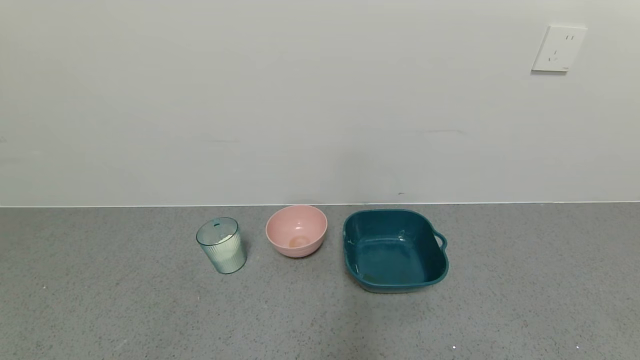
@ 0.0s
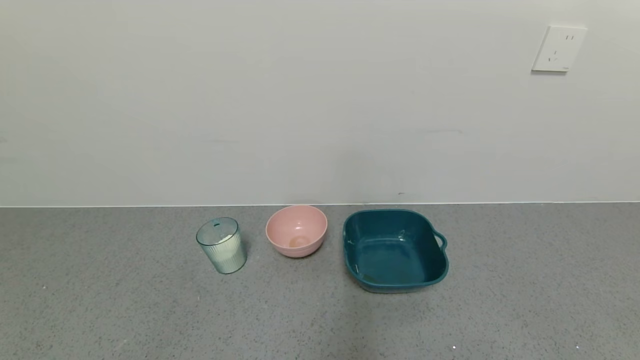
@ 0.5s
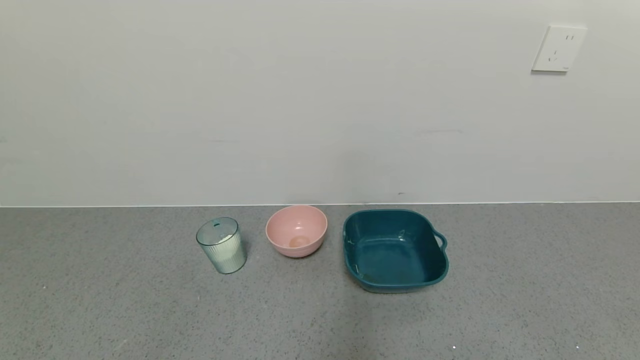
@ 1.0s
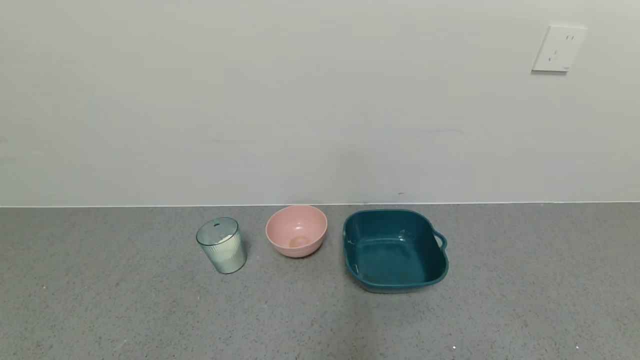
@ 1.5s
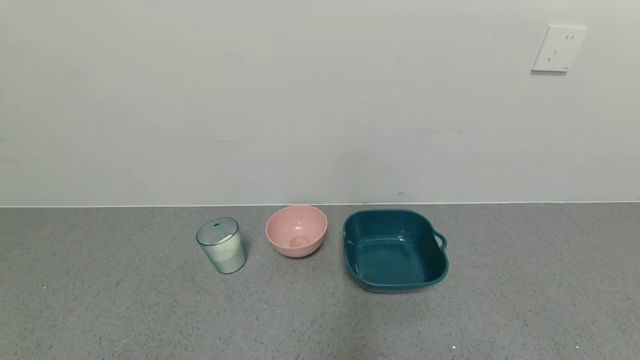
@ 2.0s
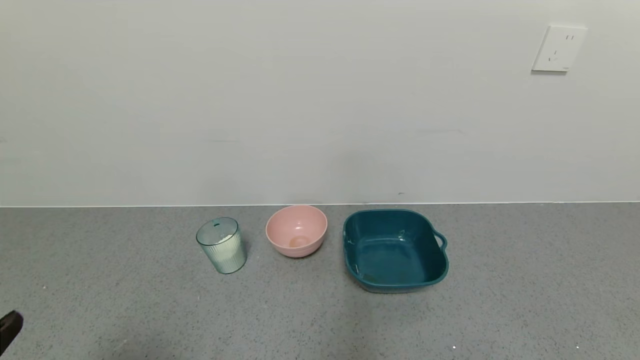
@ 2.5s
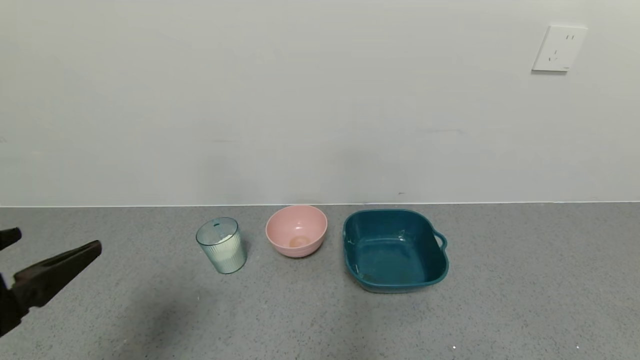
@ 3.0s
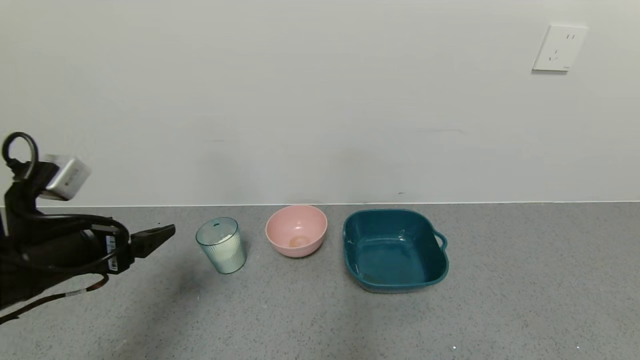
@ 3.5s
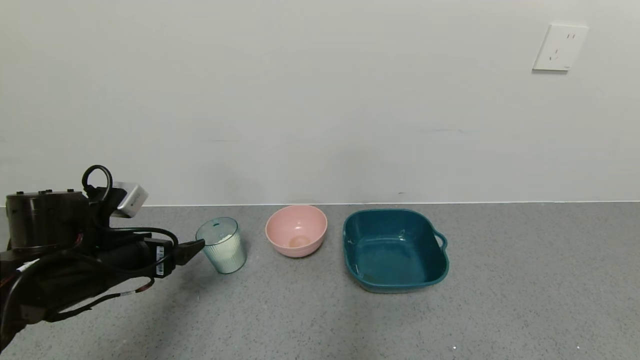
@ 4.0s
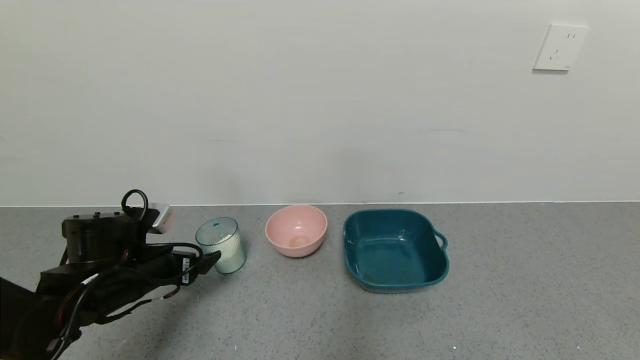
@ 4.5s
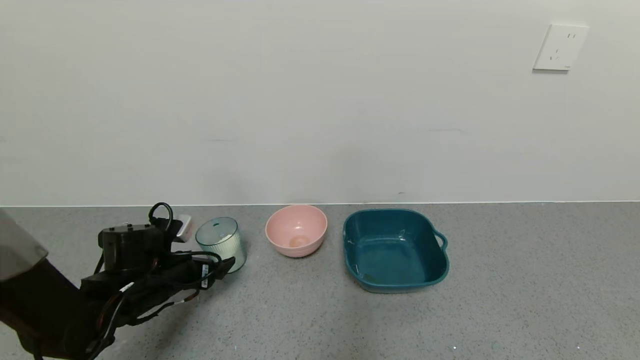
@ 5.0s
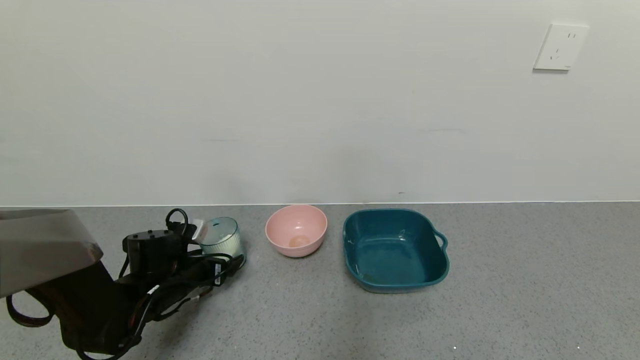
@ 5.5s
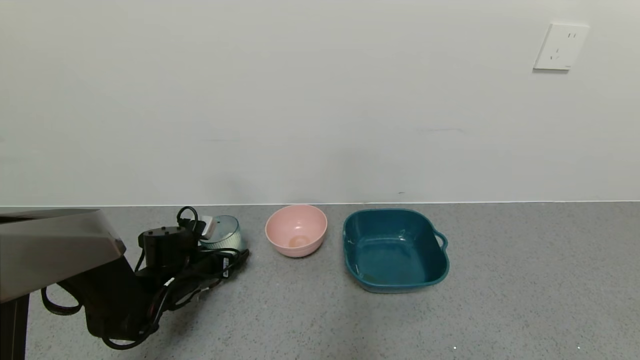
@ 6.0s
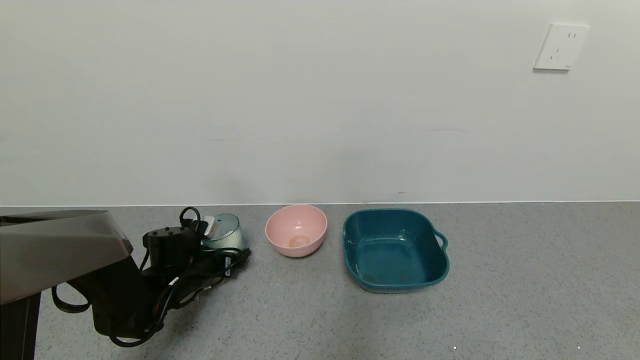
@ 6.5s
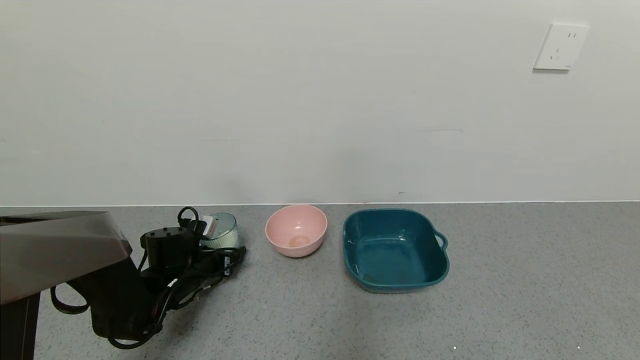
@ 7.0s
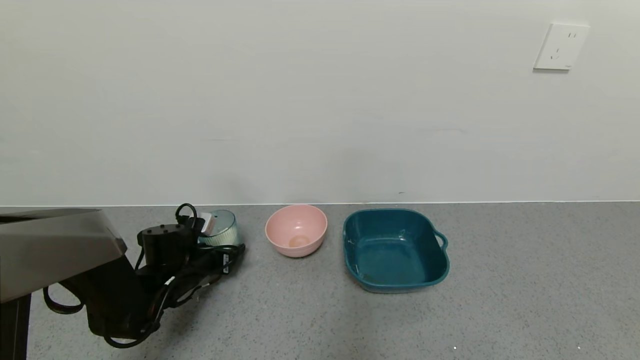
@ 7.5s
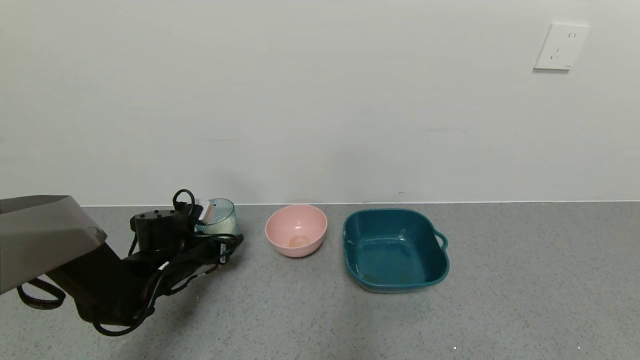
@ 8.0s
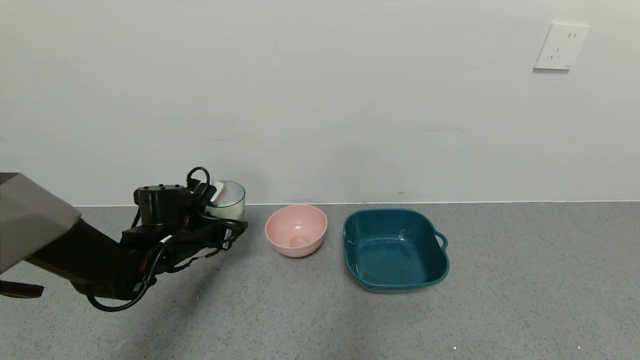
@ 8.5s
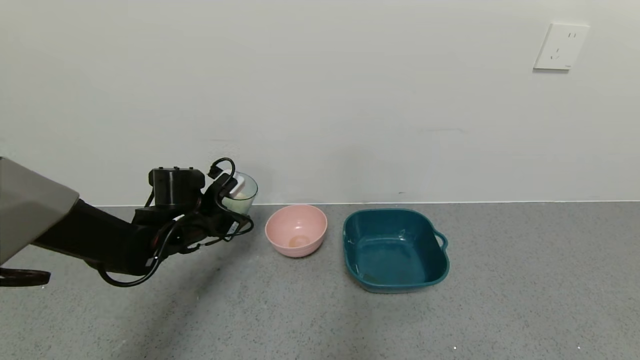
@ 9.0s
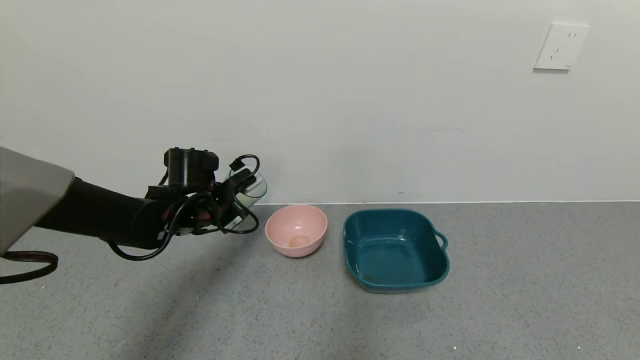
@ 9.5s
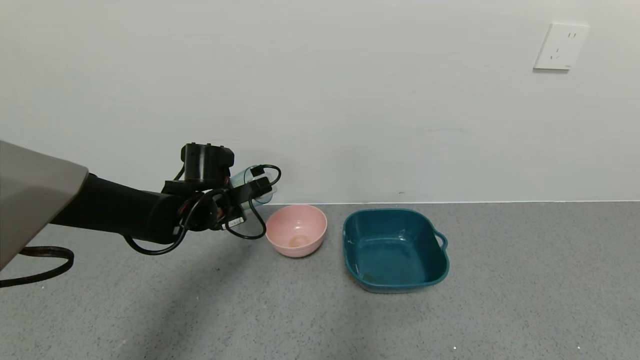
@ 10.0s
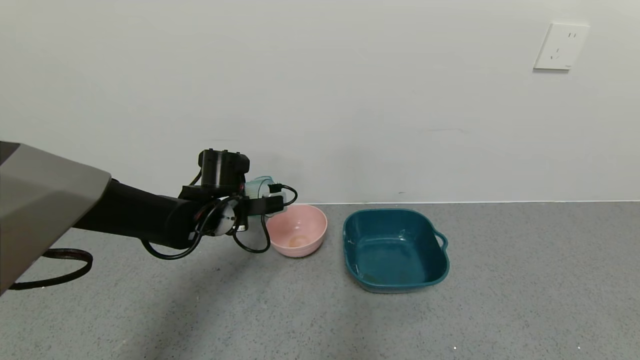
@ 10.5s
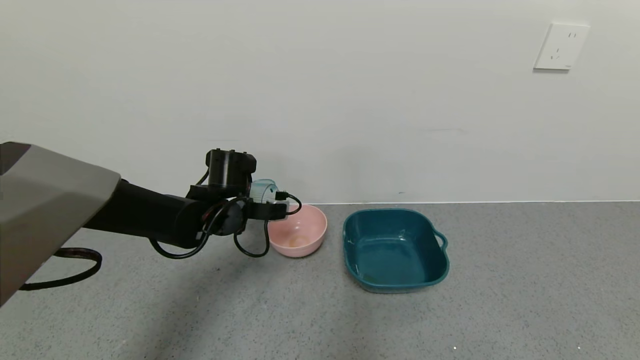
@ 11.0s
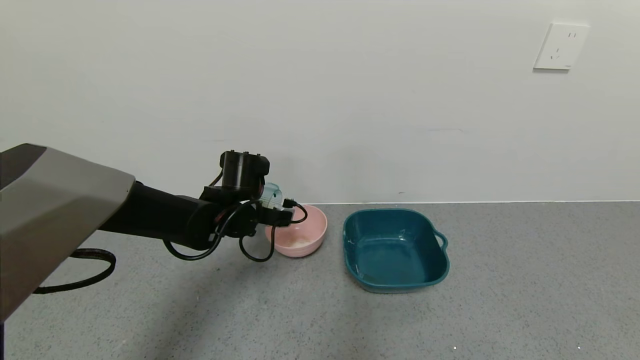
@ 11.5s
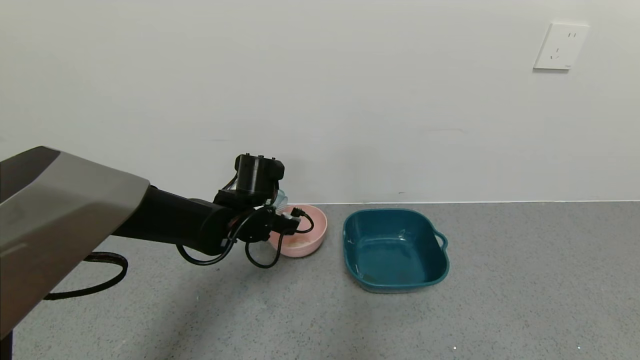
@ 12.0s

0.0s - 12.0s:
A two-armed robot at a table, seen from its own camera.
Task of the whole recording: use a gripper to pick up the cup and pour the powder into a bowl or tray.
Step, 7.0s - 10.5s: Pick up blue cup filled with milk powder with left gripper.
2.0s - 4.0s: The left gripper is displaced forward by about 30 cm.
4.0s - 6.0s: The left gripper shifts some 15 cm downward and forward.
6.0s - 8.0s: The left gripper closes its fingers.
8.0s - 10.0s: The left gripper goes approximately 10 cm upward and to the right.
10.0s - 12.0s: The left gripper moves to the right, approximately 5 cm.

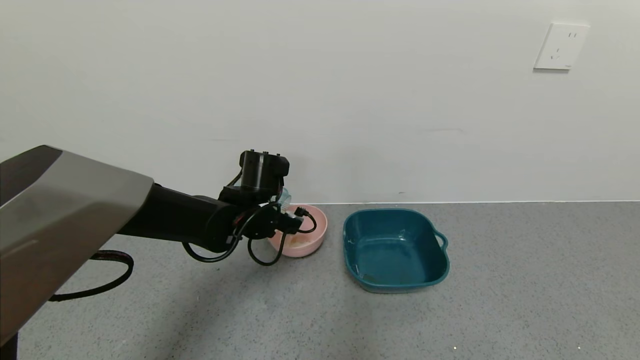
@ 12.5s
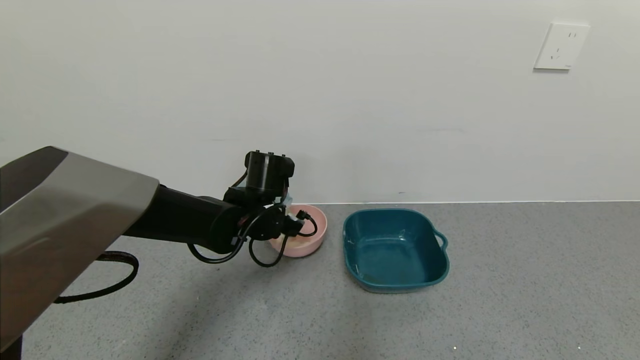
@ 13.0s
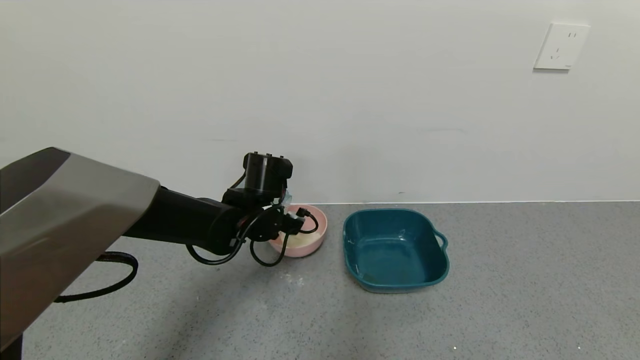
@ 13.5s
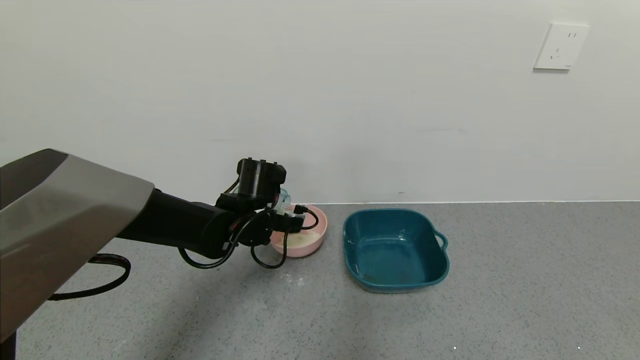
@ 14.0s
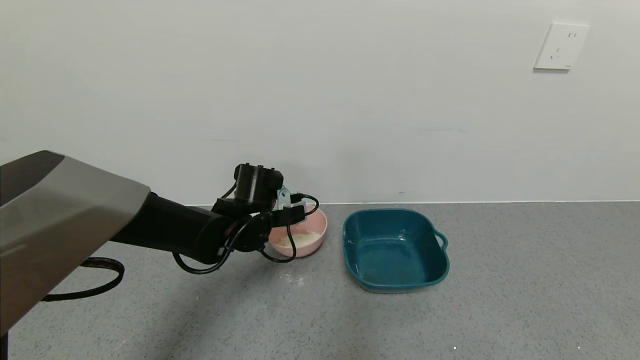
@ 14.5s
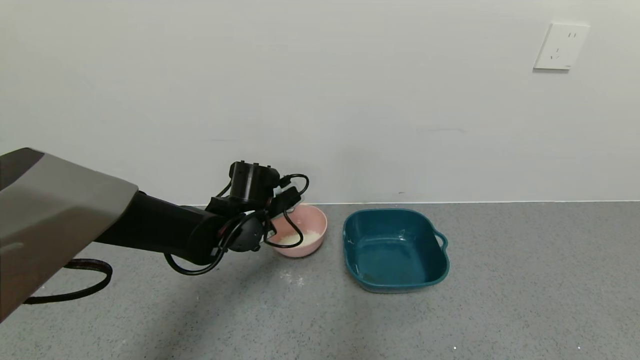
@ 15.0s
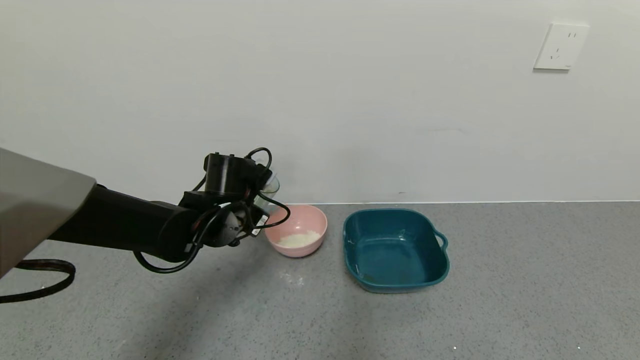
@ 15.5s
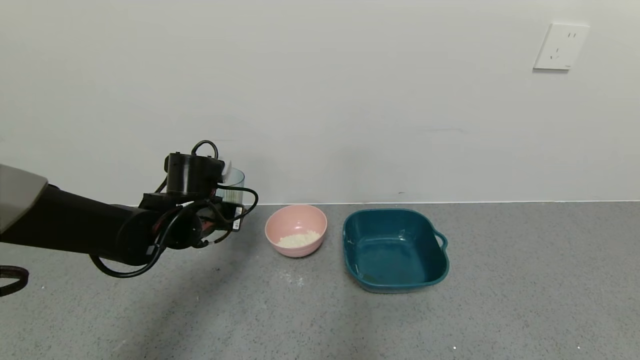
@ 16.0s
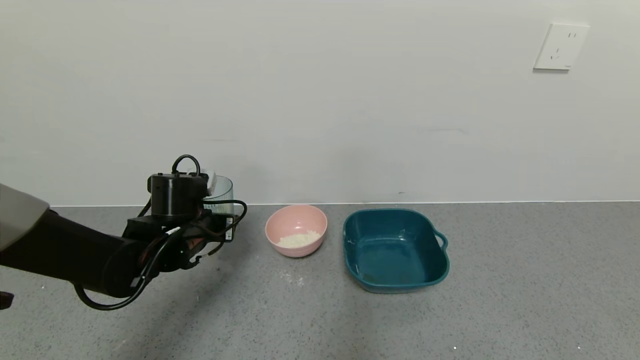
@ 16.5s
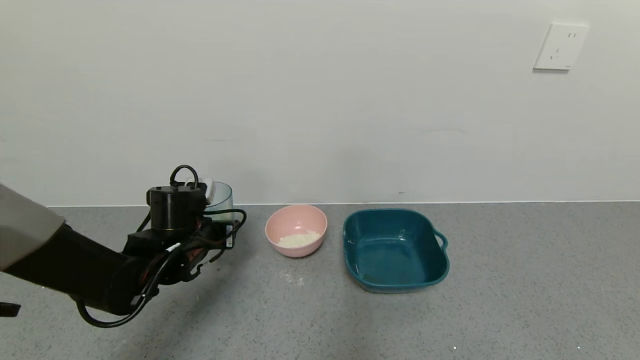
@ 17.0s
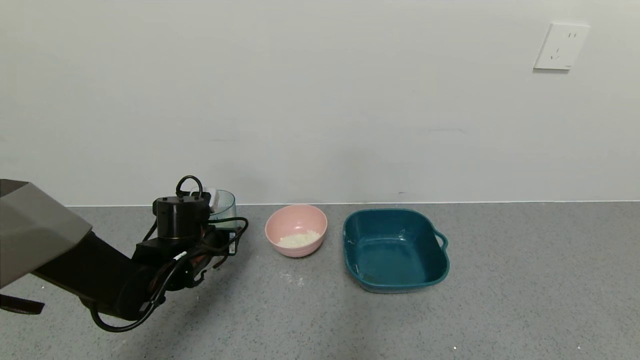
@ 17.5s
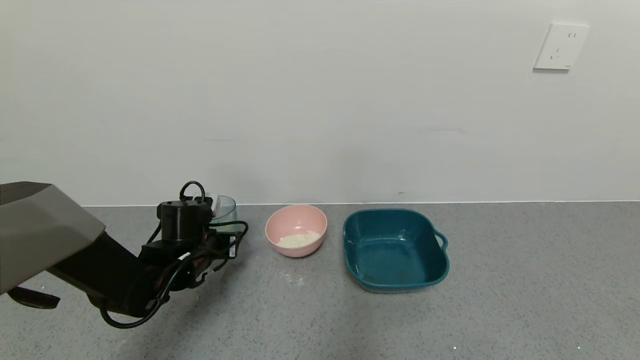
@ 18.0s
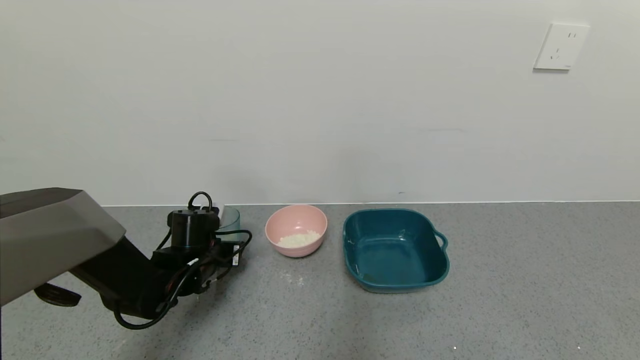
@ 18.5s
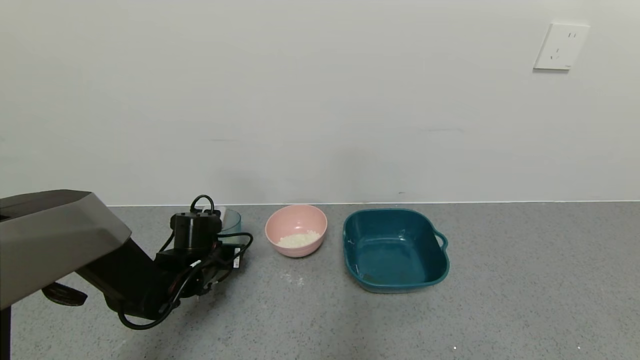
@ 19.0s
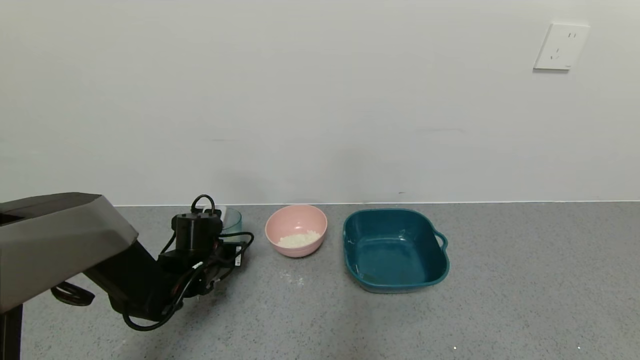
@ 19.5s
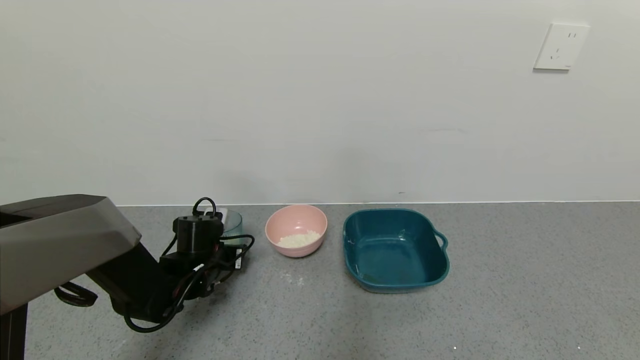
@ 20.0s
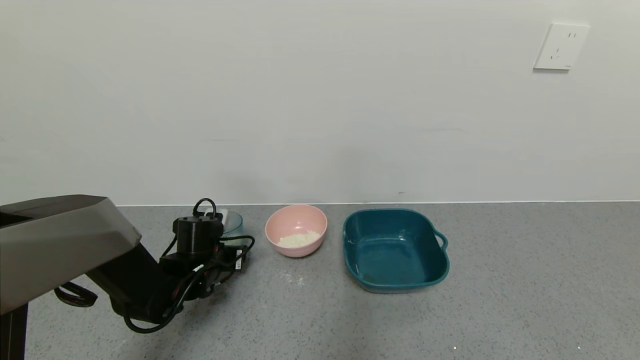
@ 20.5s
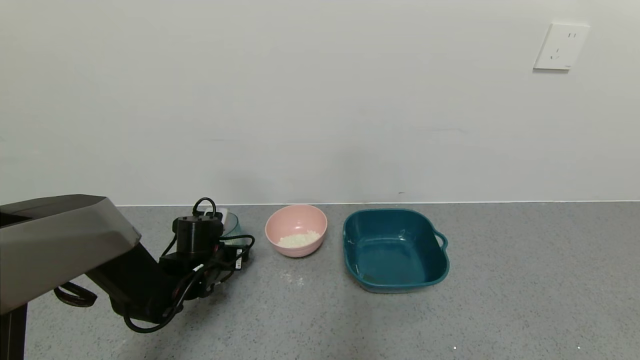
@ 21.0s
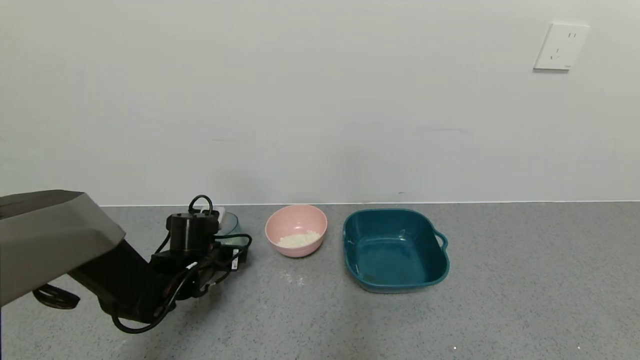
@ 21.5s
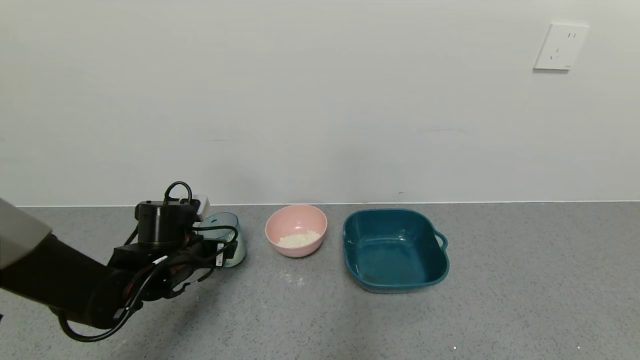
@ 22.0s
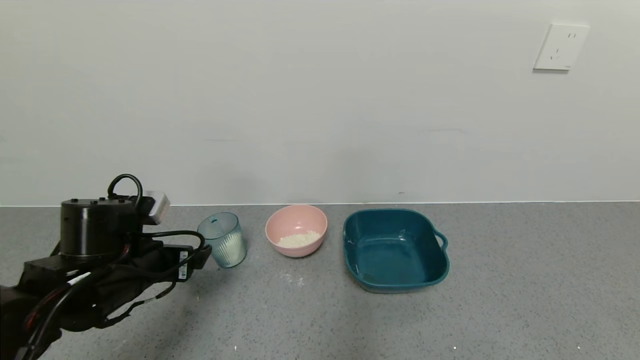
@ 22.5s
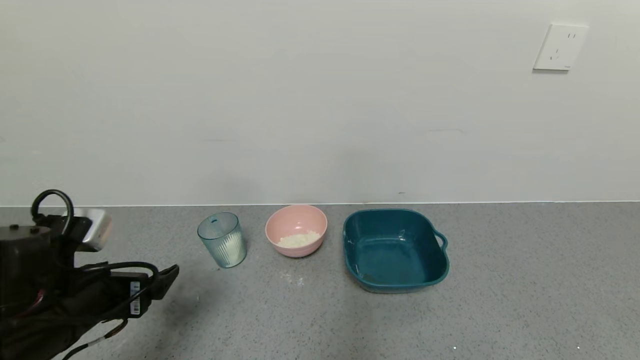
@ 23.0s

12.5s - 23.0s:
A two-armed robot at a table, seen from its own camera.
Task of the whole recording: use a gripper to pick up the cup and pour the powder into a bowl or tray.
Step, 12.5s - 15.0s: Pour the milk powder into the pink bowl with left gripper.
Step, 15.5s - 20.5s: Place blue cup with milk powder on the table with left gripper.
14.5s - 16.5s: The left gripper shifts roughly 10 cm to the left.
16.5s - 19.0s: The left gripper goes approximately 10 cm downward.
19.0s - 21.0s: The left gripper opens up.
21.0s - 23.0s: The left gripper is displaced backward and upward by roughly 20 cm.
